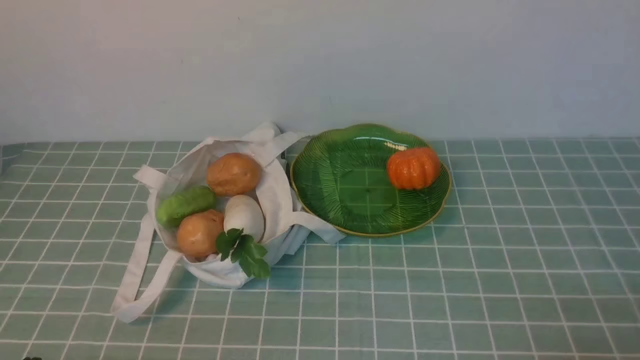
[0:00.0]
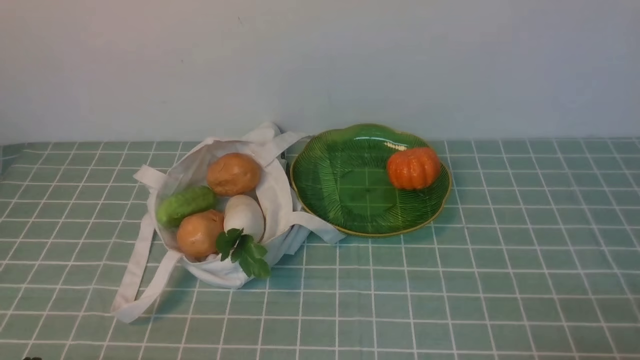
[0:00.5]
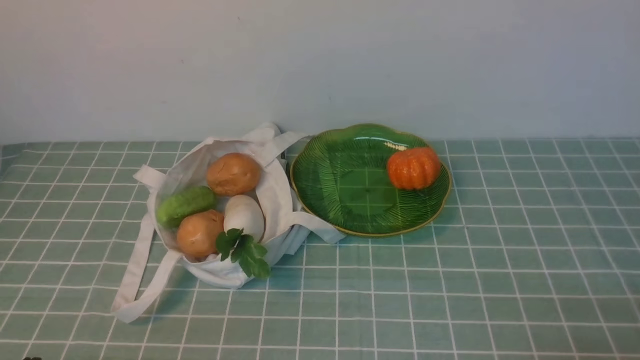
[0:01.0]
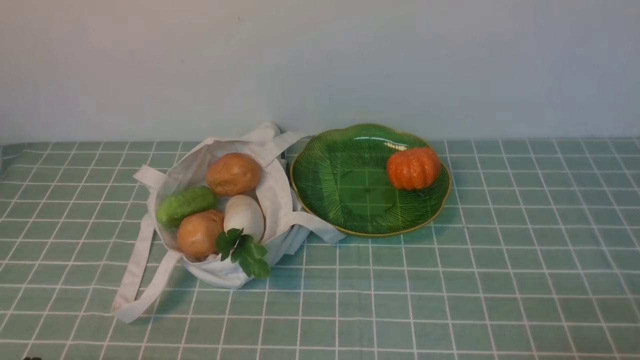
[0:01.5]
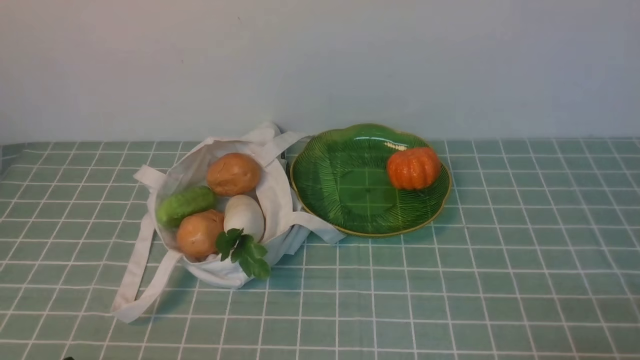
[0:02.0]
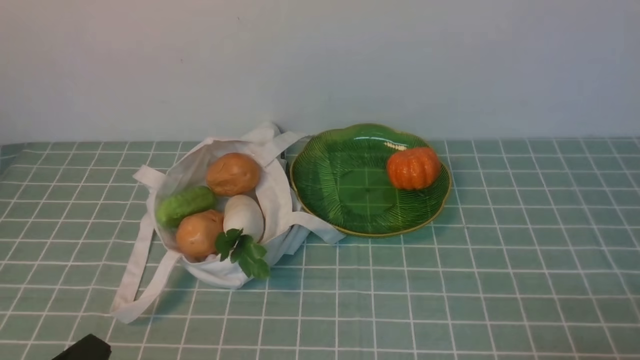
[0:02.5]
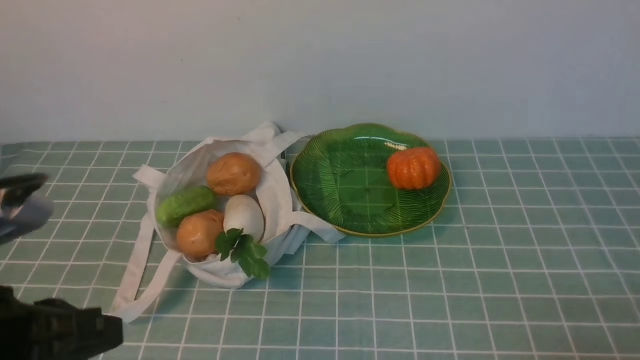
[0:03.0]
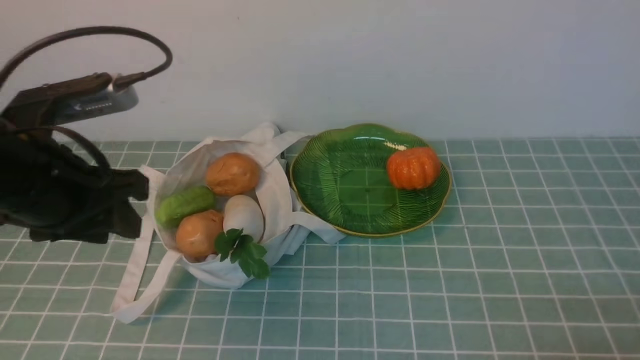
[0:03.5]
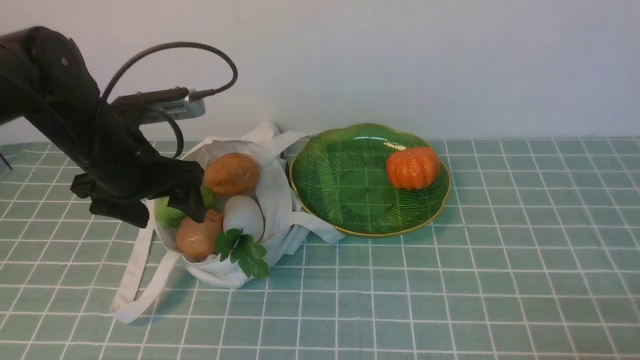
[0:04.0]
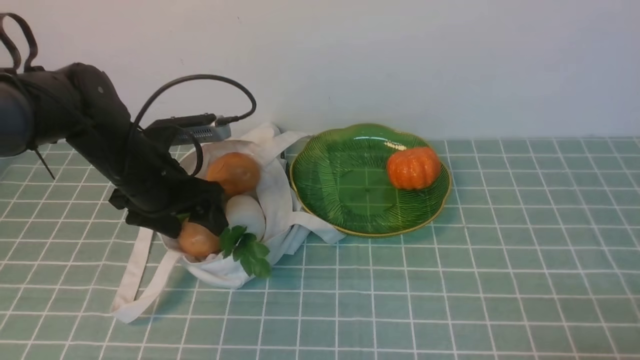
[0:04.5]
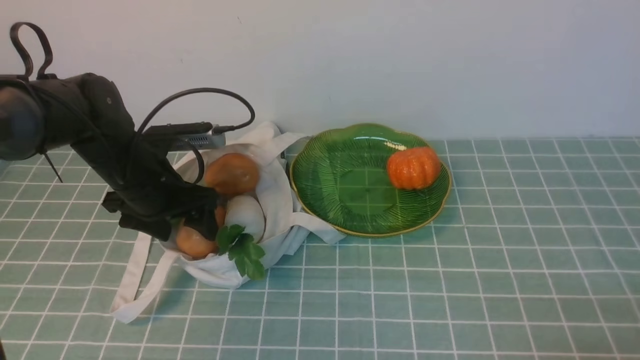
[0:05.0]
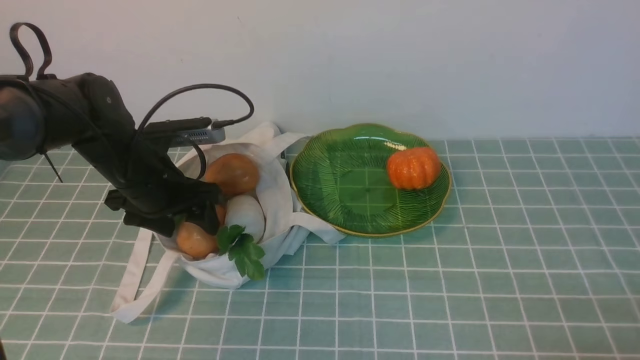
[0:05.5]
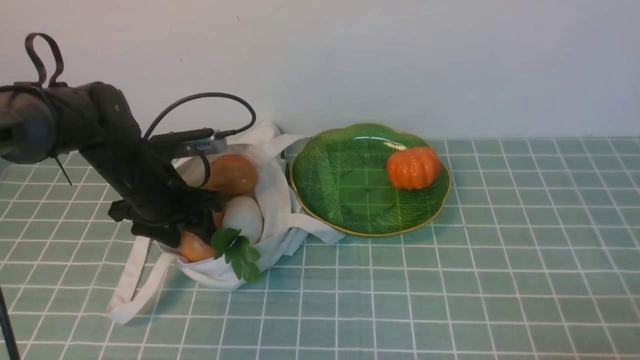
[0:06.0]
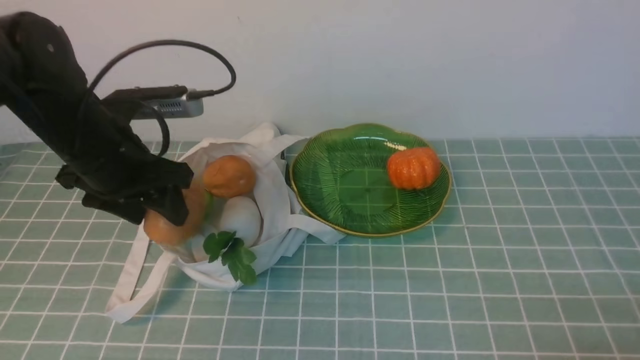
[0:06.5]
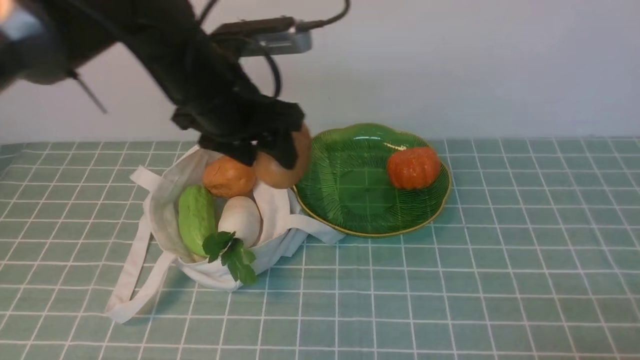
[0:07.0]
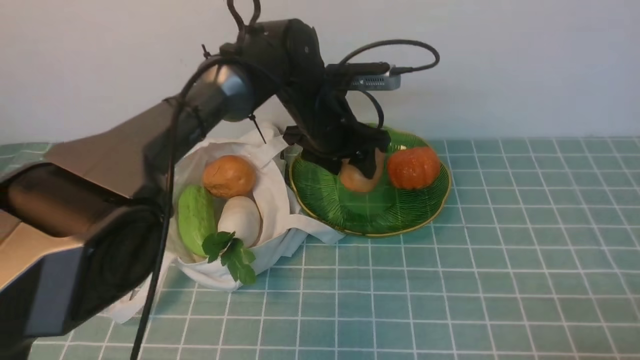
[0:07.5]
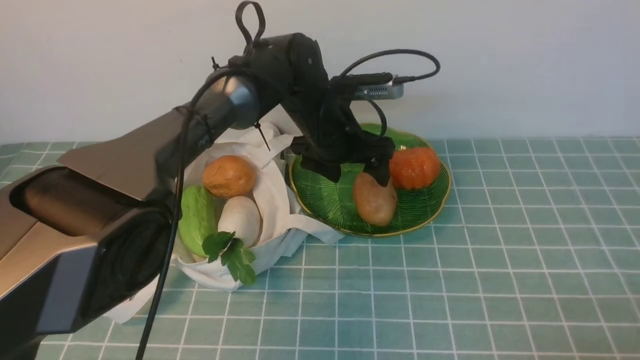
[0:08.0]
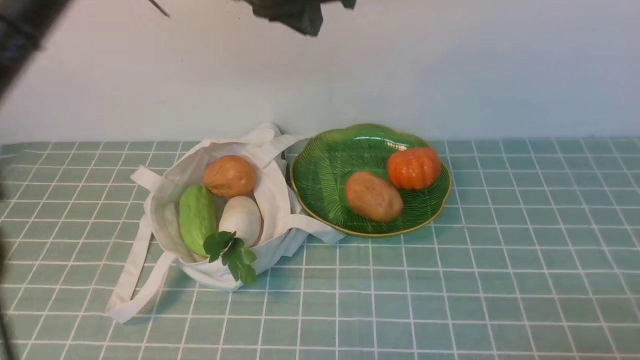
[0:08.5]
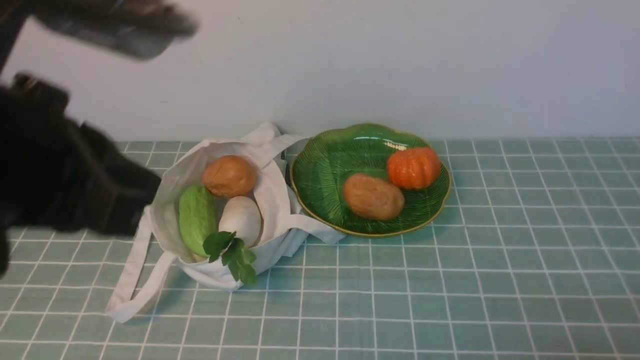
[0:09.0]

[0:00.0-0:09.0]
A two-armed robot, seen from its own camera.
Task of the whole recording: take vegetables from cloth bag on blue coffee tablecloth place on plate.
Step, 0:00.0 to 0:06.0: Grasp the potato with left gripper.
Step, 0:06.5 to 0:07.5: Place the potato on the plate with left gripper.
0:02.0 to 0:04.5: The left gripper goes about 30 cm forward, and opens.
0:04.5 to 0:07.0: The left gripper shifts roughly 15 cm upward and to the right.
0:07.0 to 0:09.0: The left gripper heads backward and upward, covering about 20 cm, and closes up.

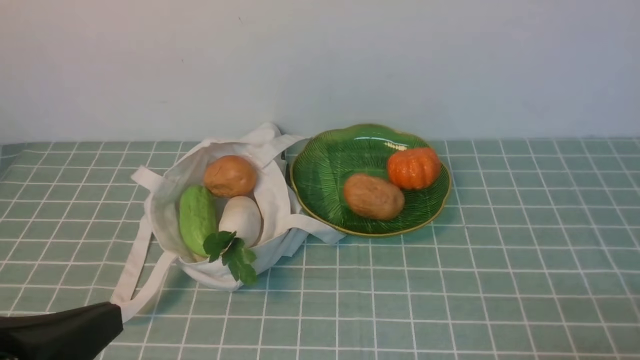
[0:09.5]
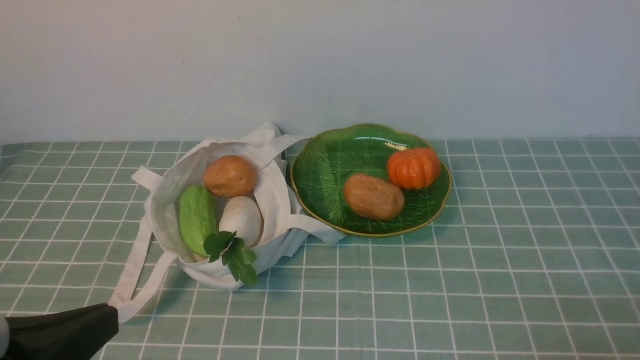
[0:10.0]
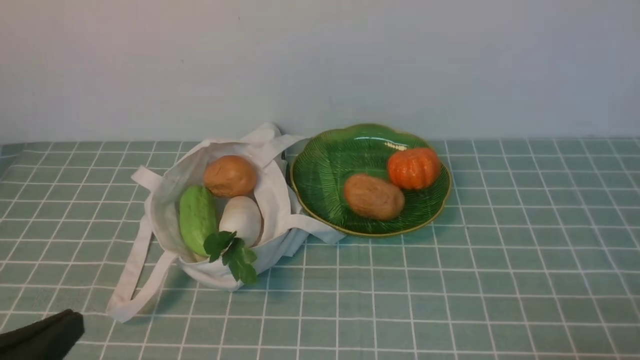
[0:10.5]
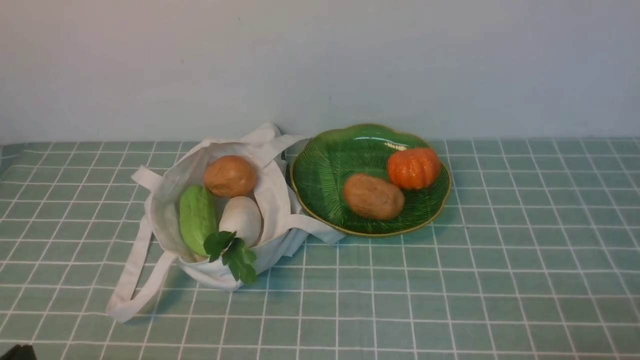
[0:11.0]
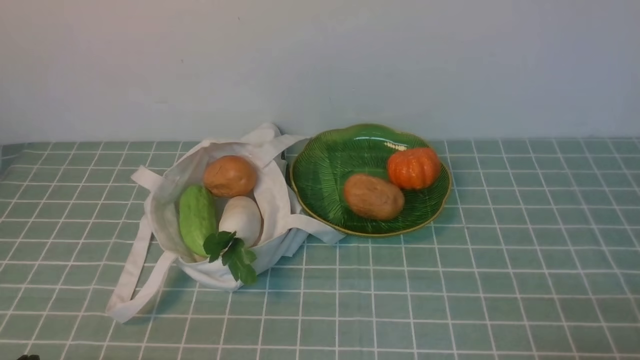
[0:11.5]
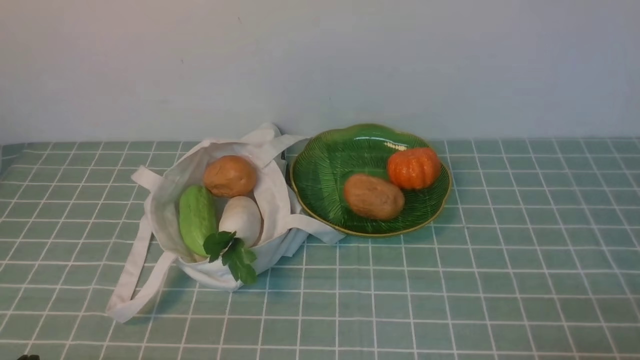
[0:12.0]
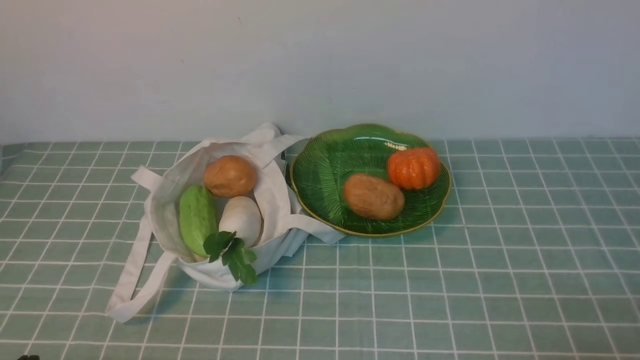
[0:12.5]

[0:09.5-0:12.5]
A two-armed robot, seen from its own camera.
Task of the whole recording: take vegetables from cloth bag on blue coffee tablecloth place on plate.
0:09.5 to 0:11.0: The left gripper goes approximately 10 cm downward.
